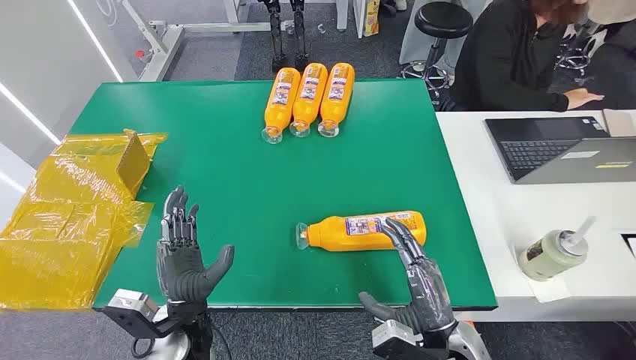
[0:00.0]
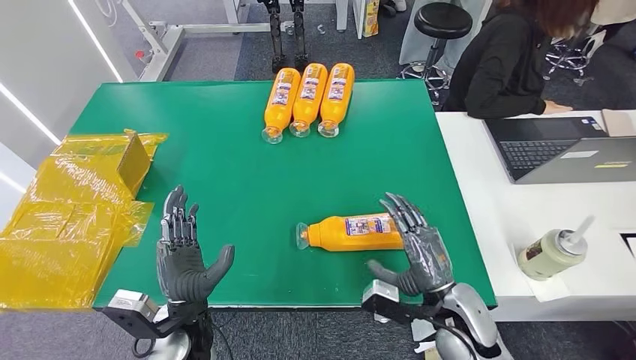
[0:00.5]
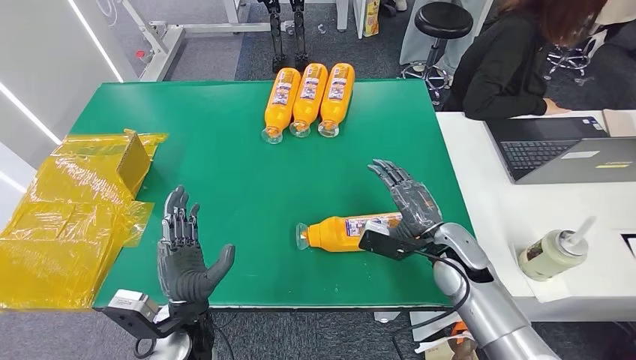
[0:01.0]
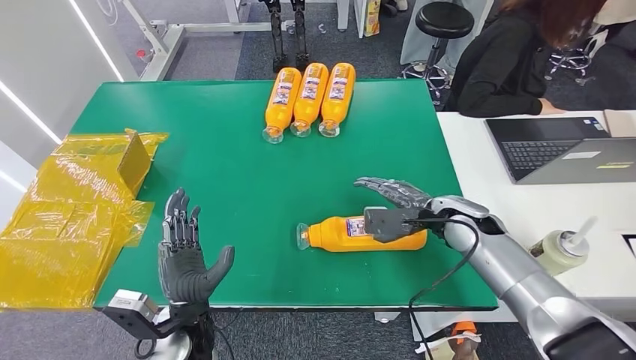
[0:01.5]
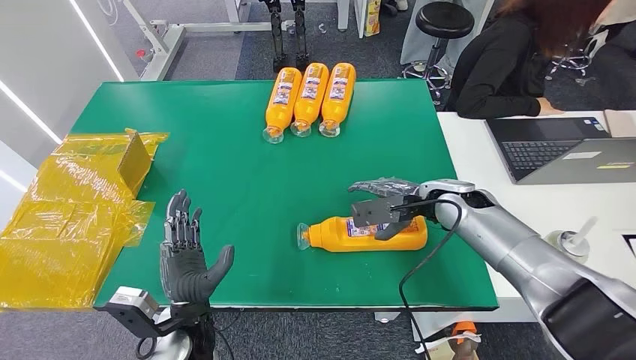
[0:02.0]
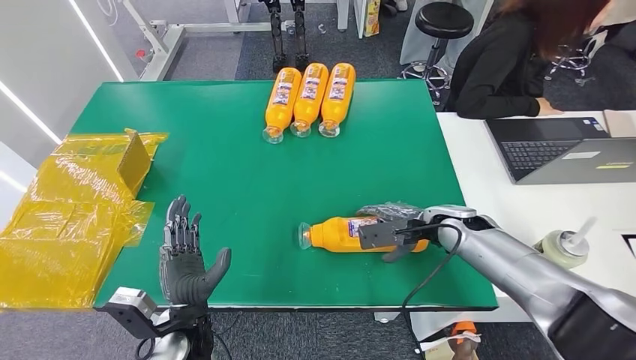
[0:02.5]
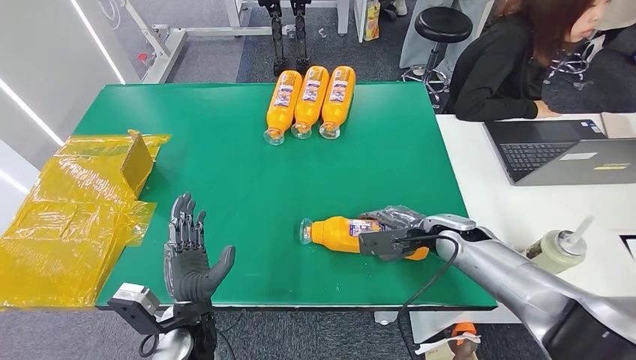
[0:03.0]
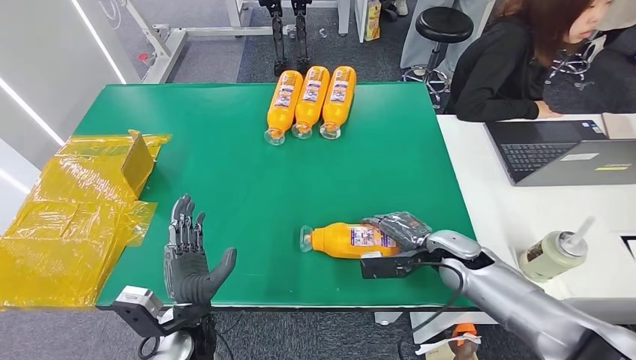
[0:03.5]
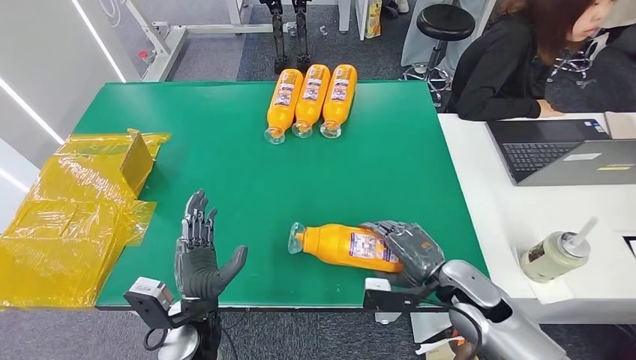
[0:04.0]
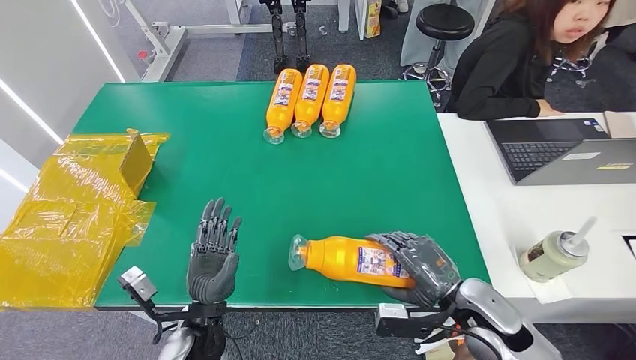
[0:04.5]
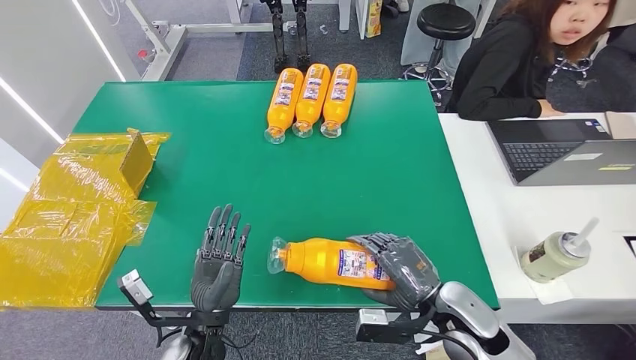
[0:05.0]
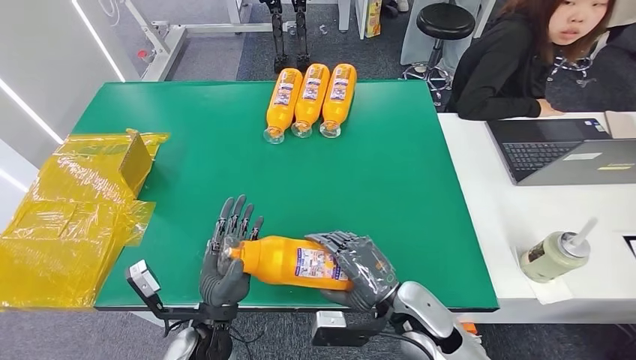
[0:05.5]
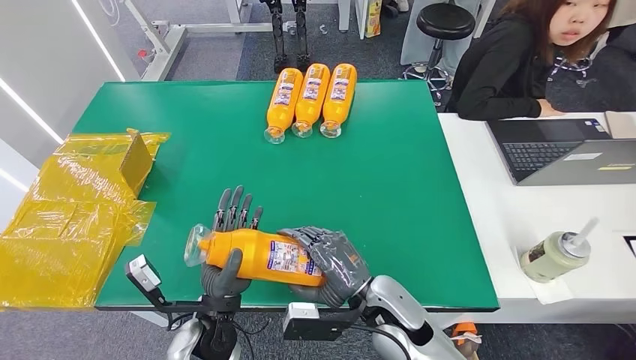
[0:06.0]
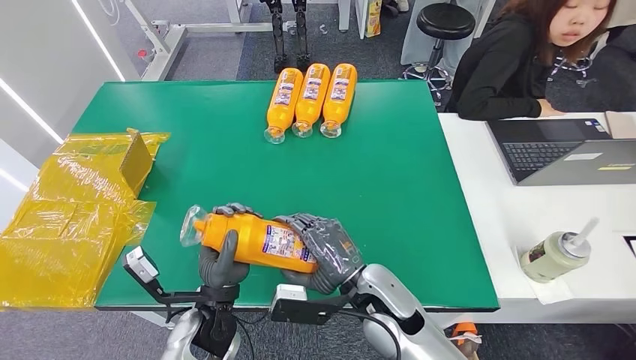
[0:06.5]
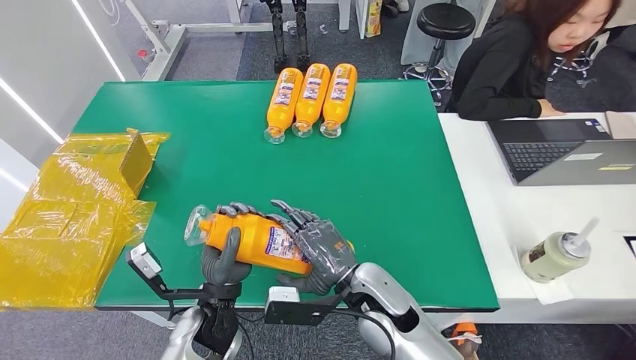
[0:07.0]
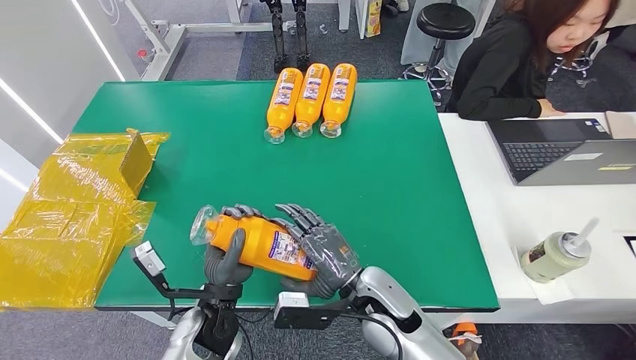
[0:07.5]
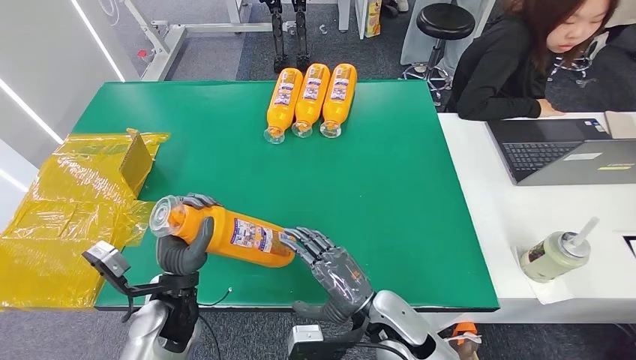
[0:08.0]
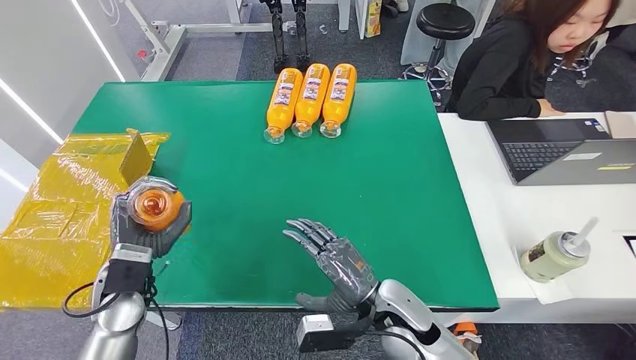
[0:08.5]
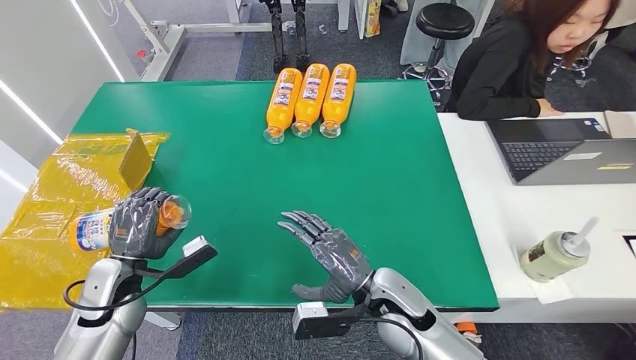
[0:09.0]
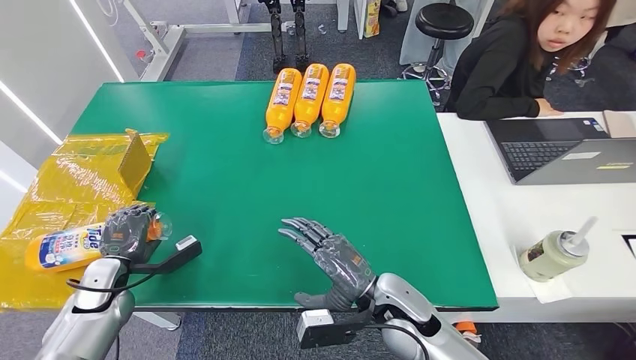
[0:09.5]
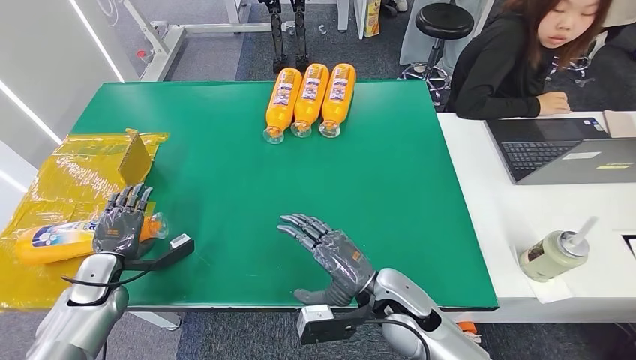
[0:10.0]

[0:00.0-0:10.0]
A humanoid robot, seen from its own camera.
Step, 0:00.0 to 0:05.5: Pick up the bottle from the table.
Step, 0:06.0 to 0:10.0: Turn the bottle to the front side.
0:04.0 to 0:06.0: The right hand heads to the left, covering some 15 cm.
0:06.0 to 0:08.0: The left hand is displaced to the left by about 5 cm.
0:08.0 to 0:10.0: The left hand heads to the left, covering about 20 cm.
